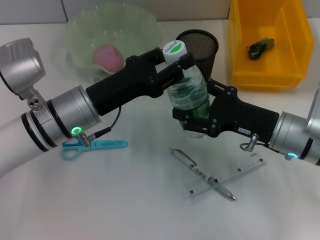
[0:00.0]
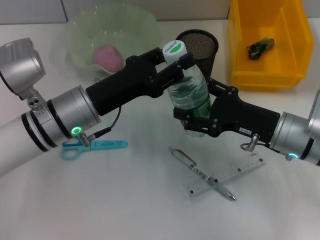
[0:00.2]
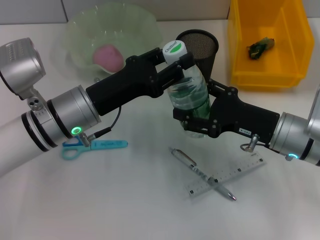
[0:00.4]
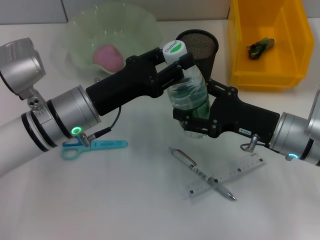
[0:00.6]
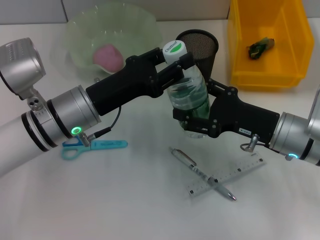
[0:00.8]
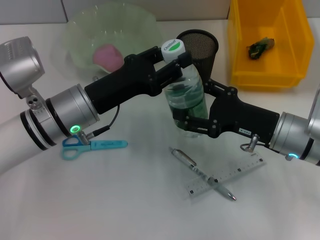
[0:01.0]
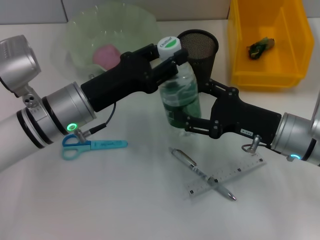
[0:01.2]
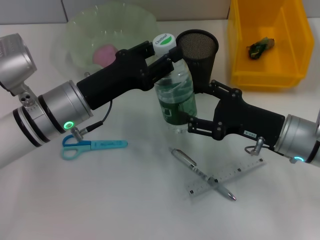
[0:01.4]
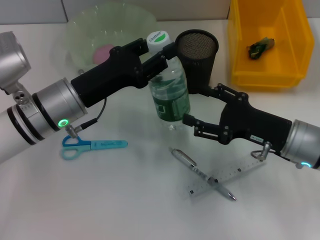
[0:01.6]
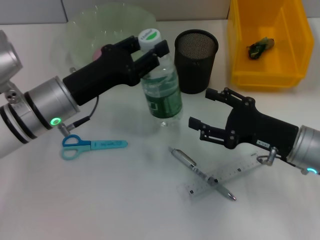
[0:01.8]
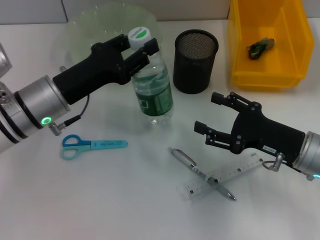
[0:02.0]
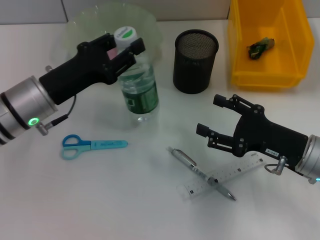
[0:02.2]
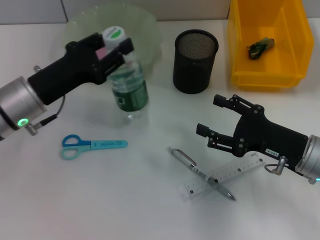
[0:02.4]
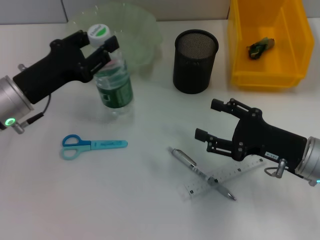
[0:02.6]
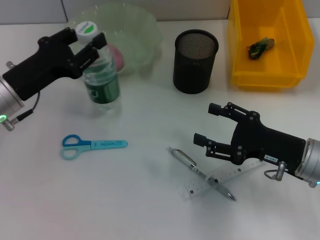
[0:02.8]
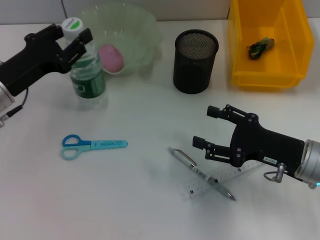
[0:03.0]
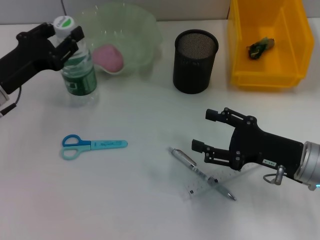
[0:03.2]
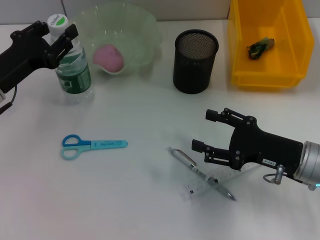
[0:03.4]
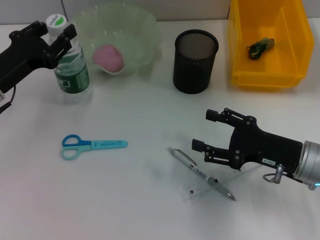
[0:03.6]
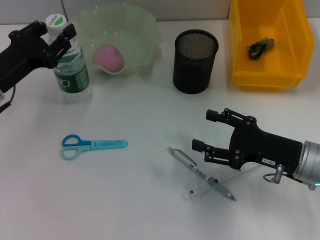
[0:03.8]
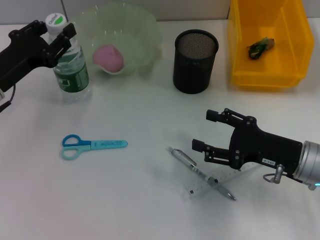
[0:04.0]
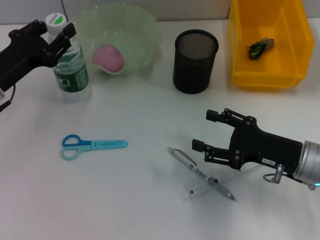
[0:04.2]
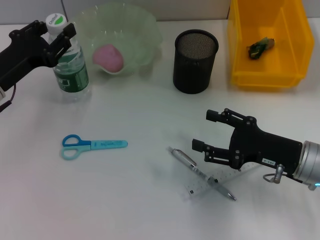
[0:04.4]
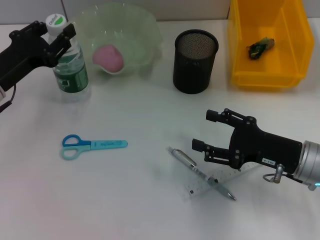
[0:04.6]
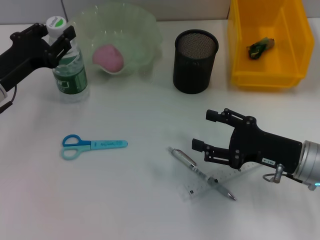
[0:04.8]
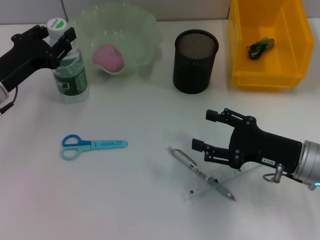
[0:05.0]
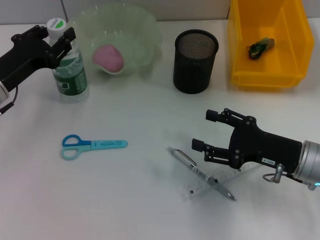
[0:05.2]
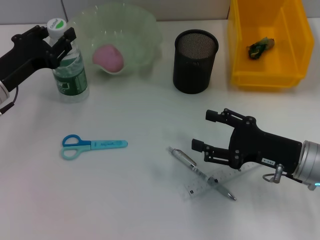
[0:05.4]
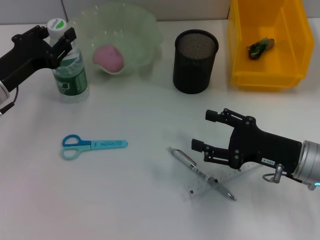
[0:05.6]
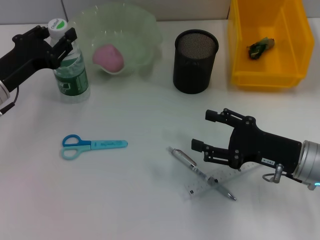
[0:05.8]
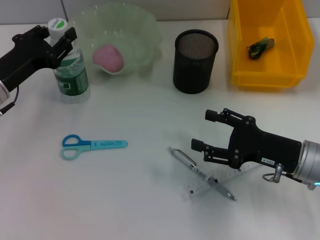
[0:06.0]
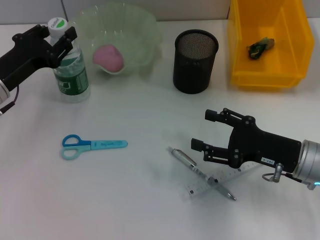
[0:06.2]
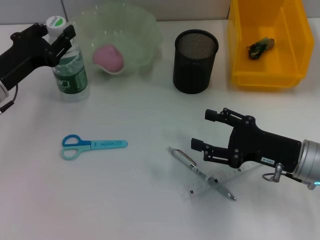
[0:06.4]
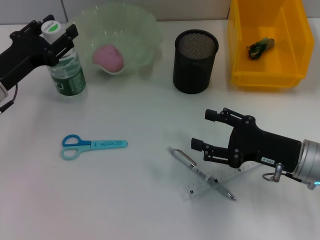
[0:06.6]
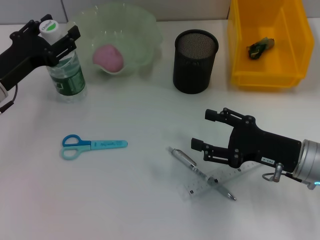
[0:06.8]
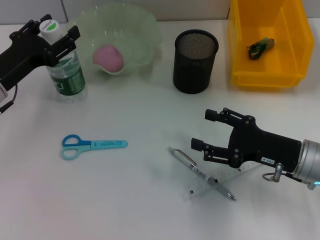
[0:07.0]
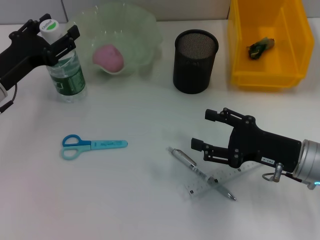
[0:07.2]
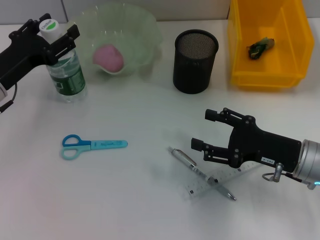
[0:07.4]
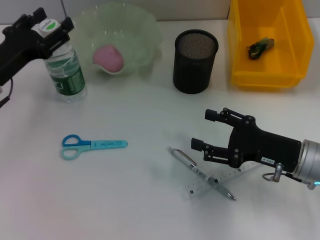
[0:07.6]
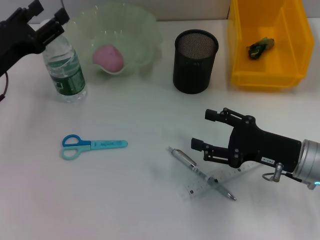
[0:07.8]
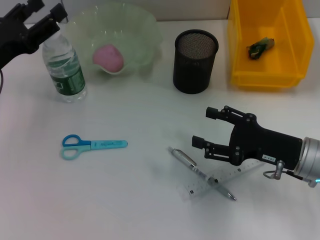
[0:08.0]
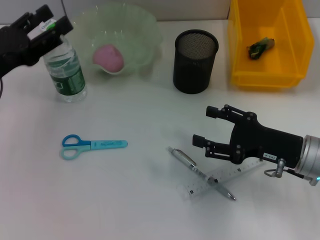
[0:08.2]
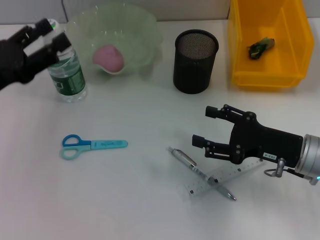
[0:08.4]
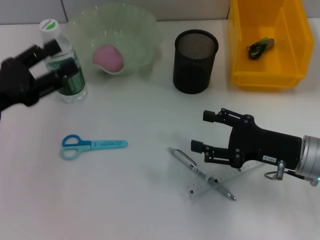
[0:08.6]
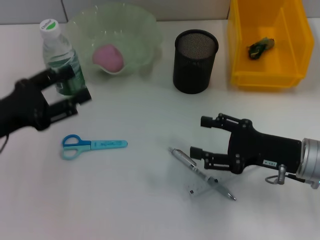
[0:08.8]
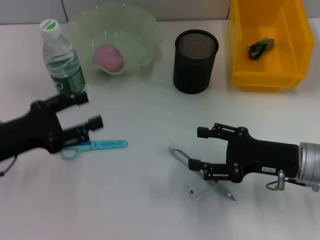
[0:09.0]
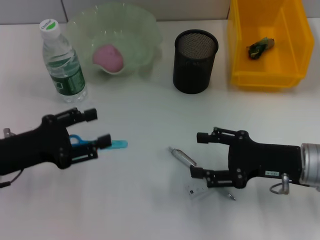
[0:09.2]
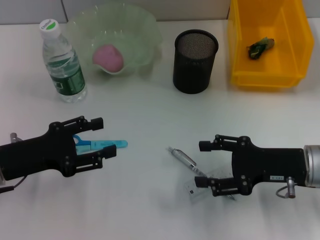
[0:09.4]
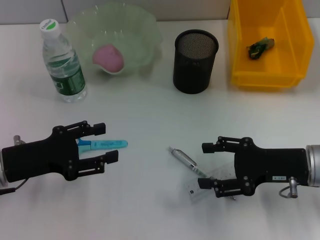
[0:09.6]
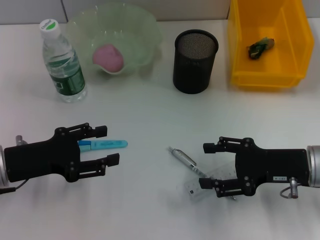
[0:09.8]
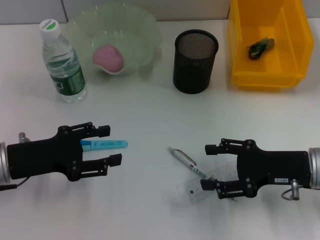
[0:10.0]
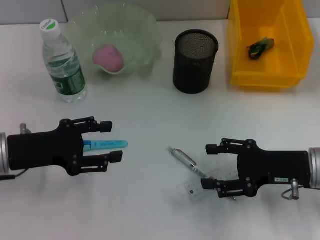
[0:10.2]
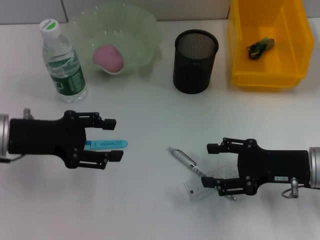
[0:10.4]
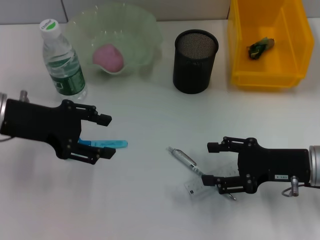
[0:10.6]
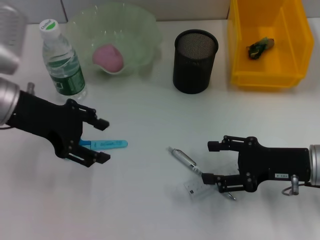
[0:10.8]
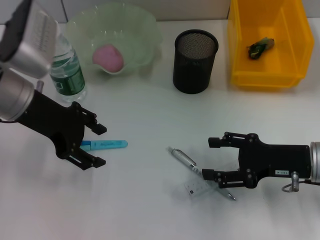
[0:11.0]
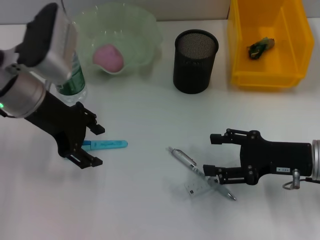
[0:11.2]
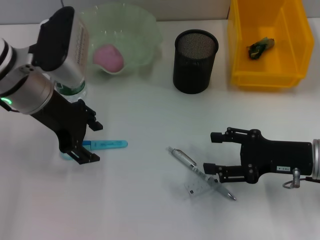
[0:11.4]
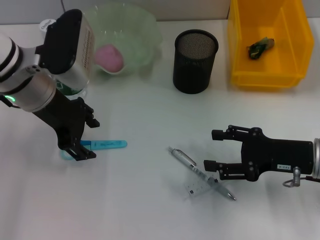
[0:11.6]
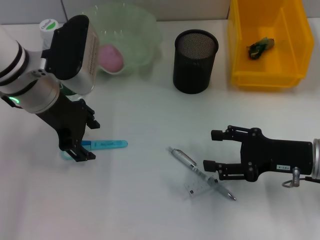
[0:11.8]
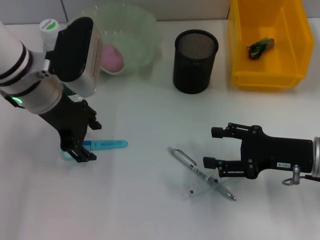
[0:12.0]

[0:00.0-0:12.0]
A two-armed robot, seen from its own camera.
Step, 0:01.4 to 0:06.8: Place the water bottle on the table with the left hand.
0:01.6 to 0:03.0: The left gripper goes about 10 cm to the left.
0:03.0 to 0:04.4: There are only small adjustments of the grippers.
0:04.4 to 0:06.0: The two grippers keep their place.
0:06.0 to 0:07.6: The left gripper opens.
0:07.6 to 0:09.0: The left gripper shifts some 10 cm backward.
0:09.0 to 0:10.4: The left gripper ends up some 5 cm from where it was.
0:10.4 to 0:12.0: The left gripper goes about 10 cm to the right and forward.

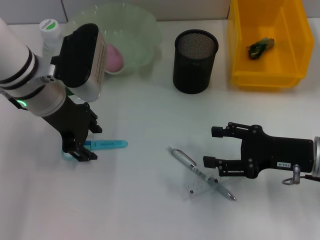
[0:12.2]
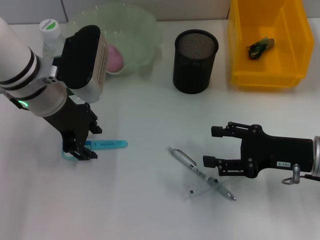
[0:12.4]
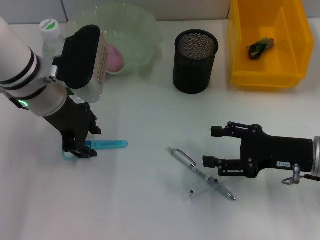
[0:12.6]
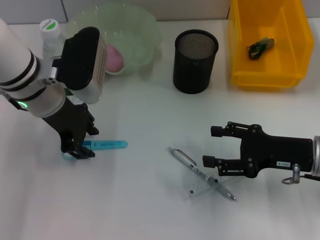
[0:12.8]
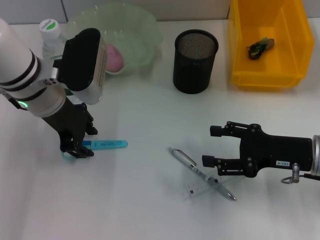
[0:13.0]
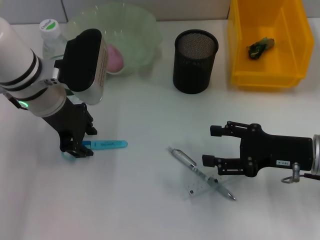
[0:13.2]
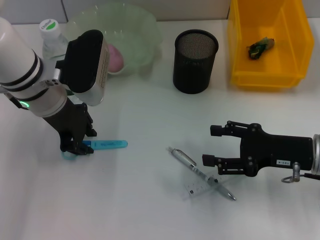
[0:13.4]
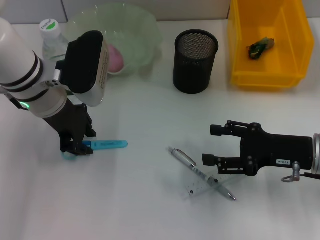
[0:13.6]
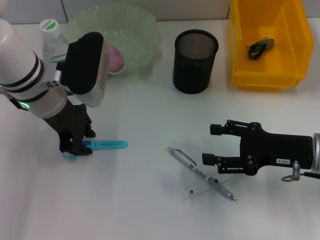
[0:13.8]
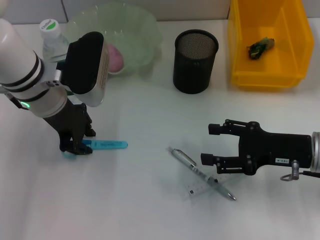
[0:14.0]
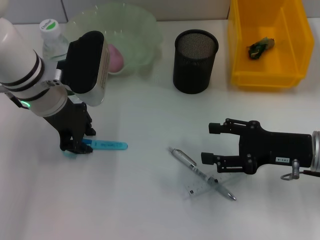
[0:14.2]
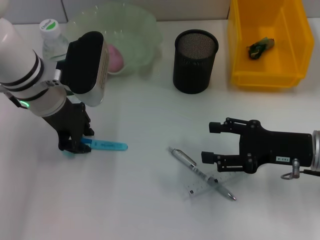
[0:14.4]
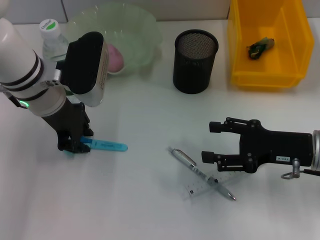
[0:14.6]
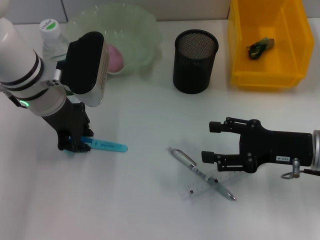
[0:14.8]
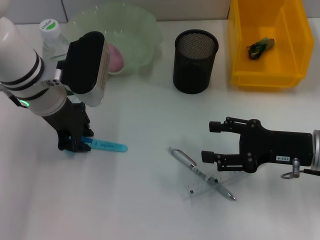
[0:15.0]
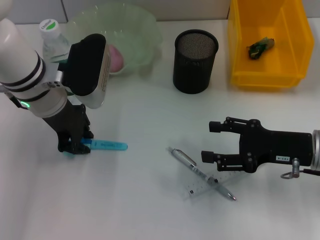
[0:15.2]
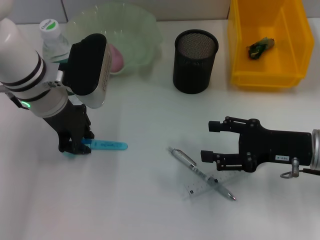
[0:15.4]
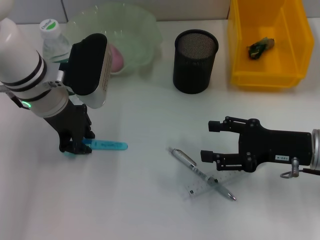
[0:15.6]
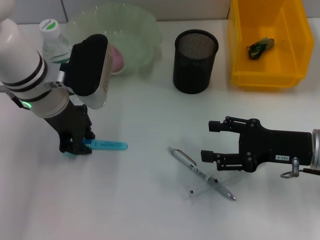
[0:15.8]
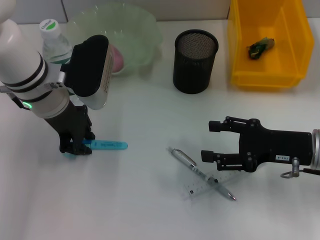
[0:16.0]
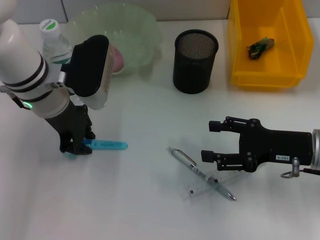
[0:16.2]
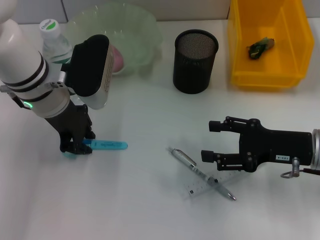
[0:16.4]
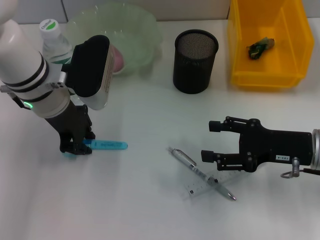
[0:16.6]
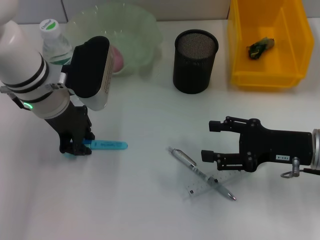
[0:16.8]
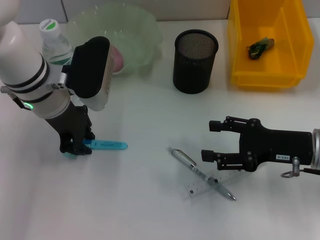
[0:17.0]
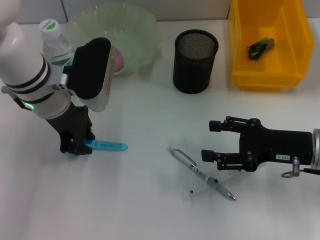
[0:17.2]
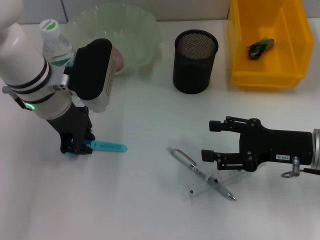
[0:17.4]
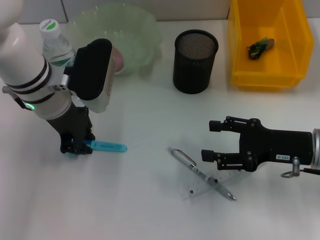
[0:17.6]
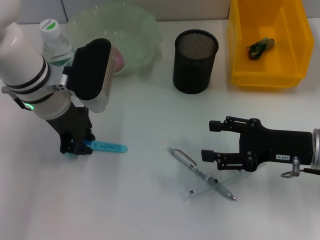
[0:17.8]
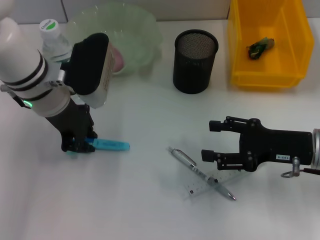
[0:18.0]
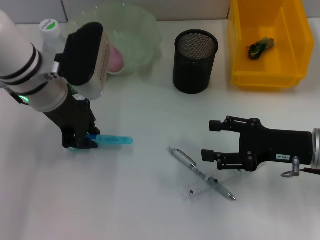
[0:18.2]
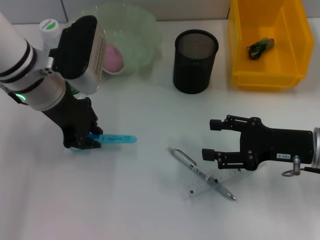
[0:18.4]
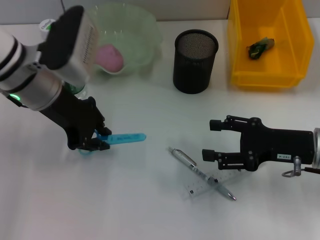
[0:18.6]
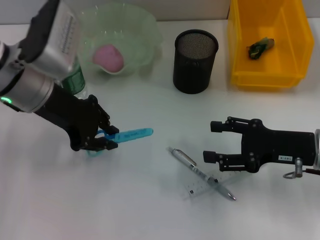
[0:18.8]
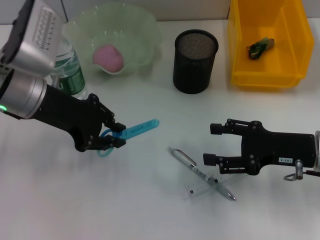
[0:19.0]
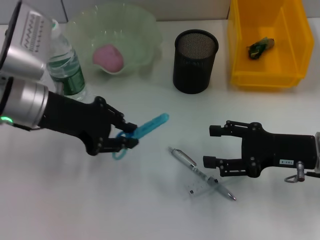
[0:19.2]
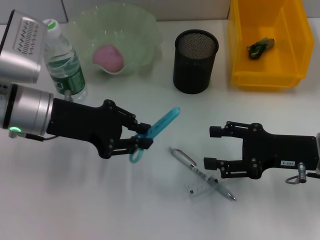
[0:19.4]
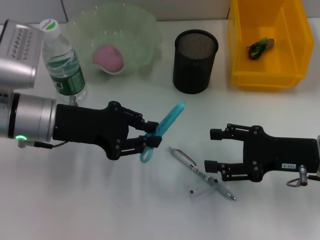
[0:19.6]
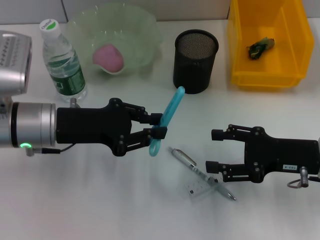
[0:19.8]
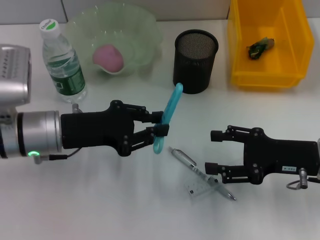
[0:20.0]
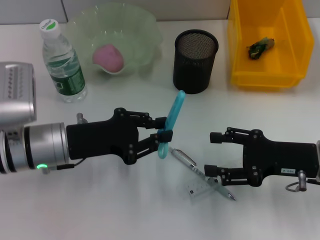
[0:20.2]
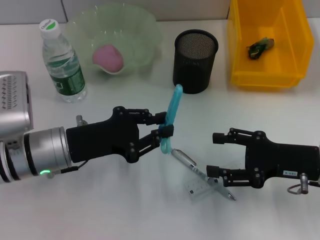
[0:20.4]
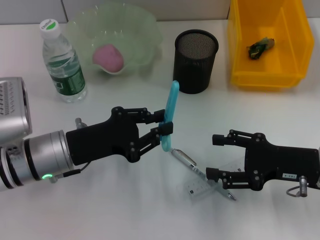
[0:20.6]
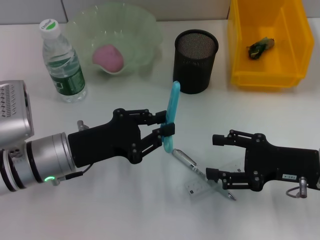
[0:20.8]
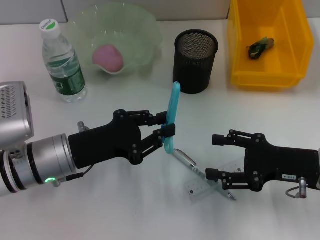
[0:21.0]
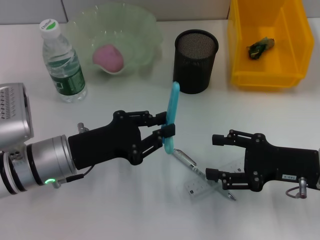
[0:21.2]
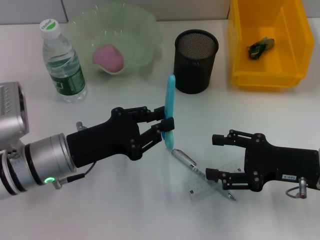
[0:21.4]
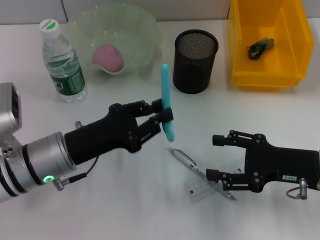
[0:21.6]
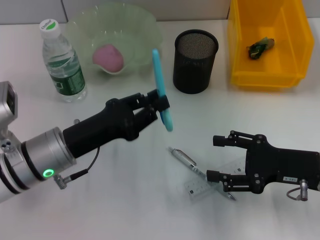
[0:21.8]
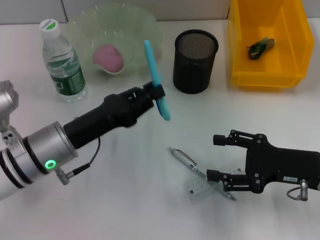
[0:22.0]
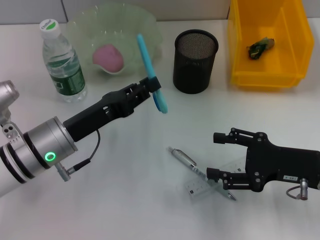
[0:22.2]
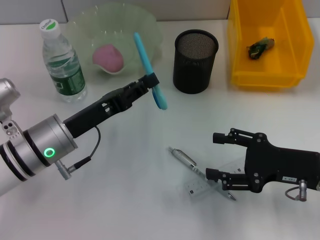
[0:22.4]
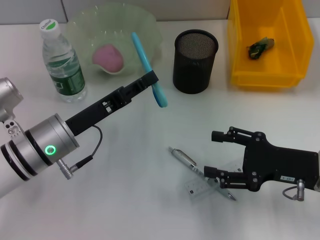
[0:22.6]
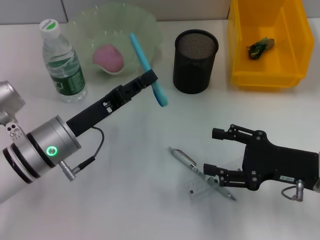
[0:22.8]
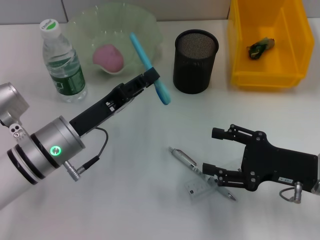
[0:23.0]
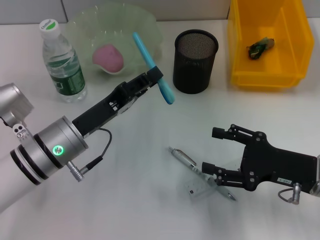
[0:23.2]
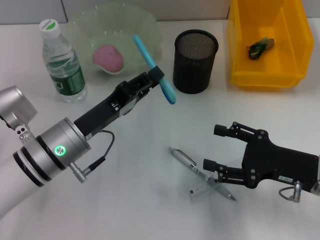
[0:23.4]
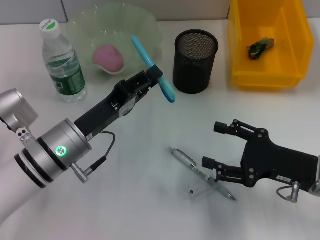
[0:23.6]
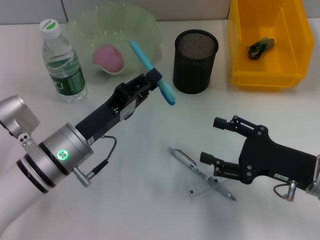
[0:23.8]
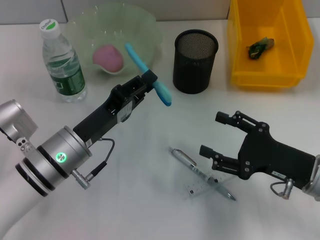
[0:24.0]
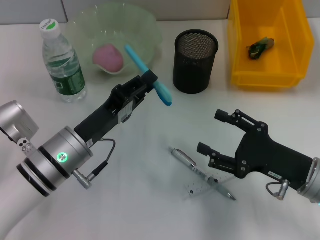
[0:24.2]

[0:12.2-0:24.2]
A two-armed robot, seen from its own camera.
Step, 0:12.2 to 0:17.6: Grab the blue scissors with the left hand.
0:12.2 to 0:13.8: The left gripper closes up.
0:13.8 to 0:18.2: The two grippers keep their place.
0:18.2 to 0:19.8: The left gripper moves backward, roughly 5 cm.
0:19.8 to 0:21.2: The left gripper moves downward, approximately 5 cm.
